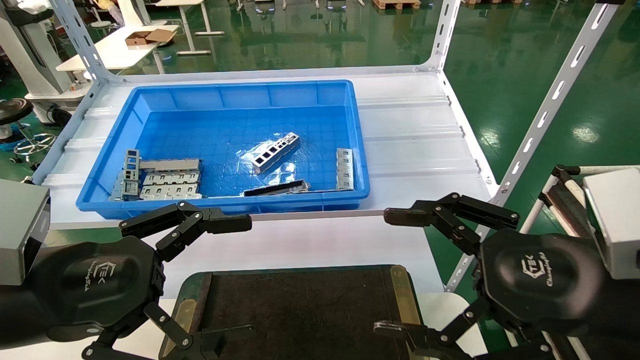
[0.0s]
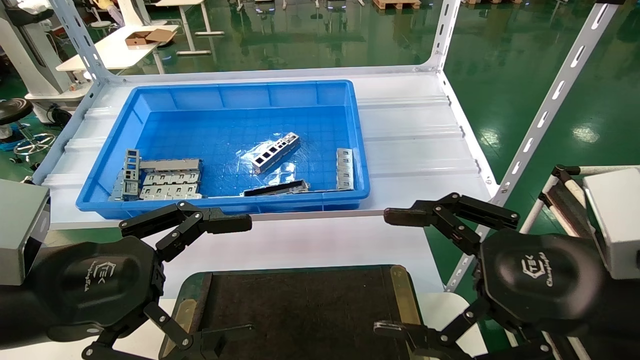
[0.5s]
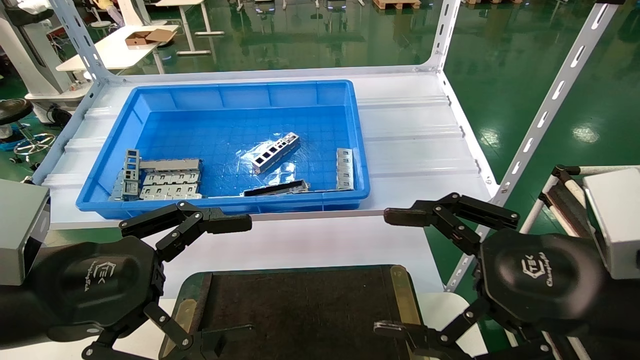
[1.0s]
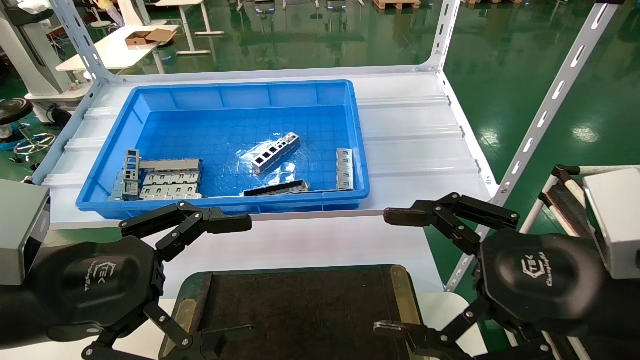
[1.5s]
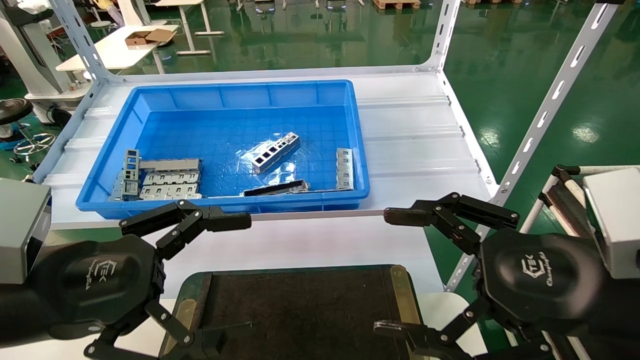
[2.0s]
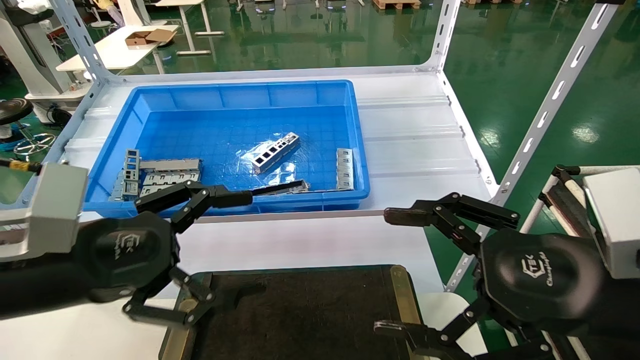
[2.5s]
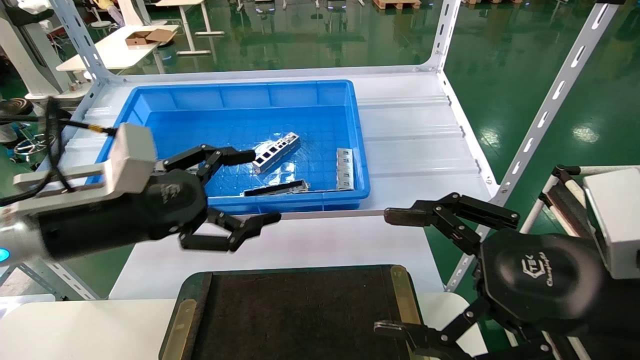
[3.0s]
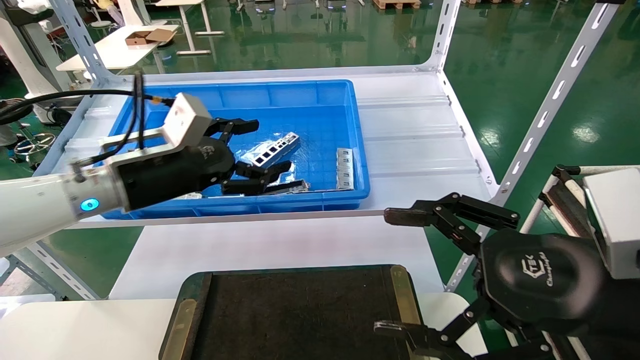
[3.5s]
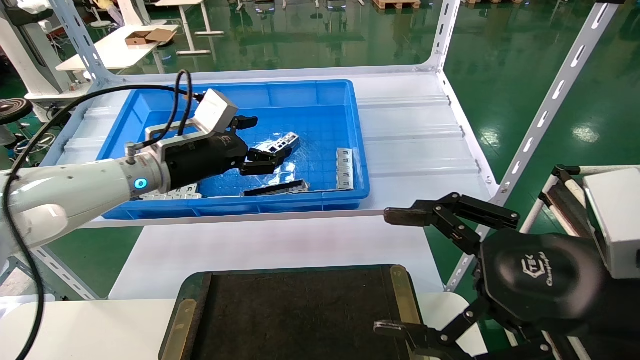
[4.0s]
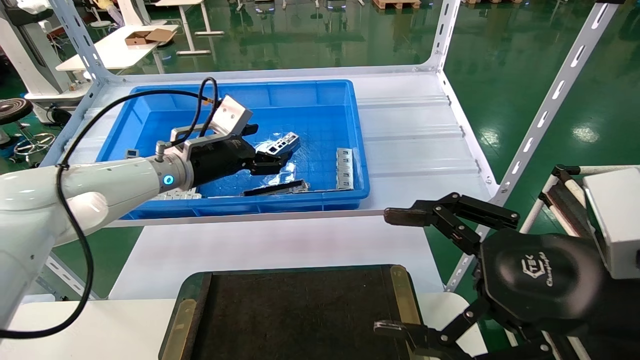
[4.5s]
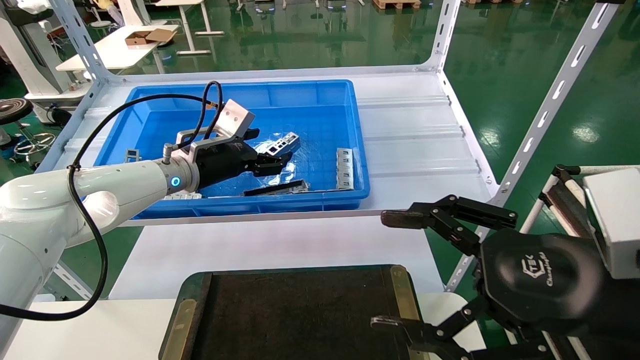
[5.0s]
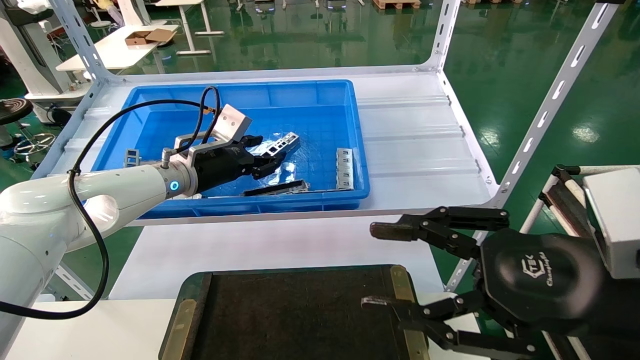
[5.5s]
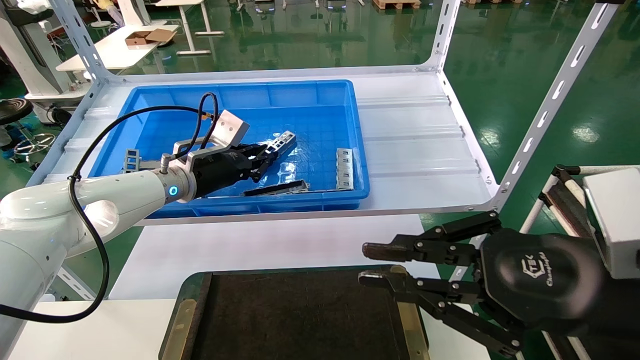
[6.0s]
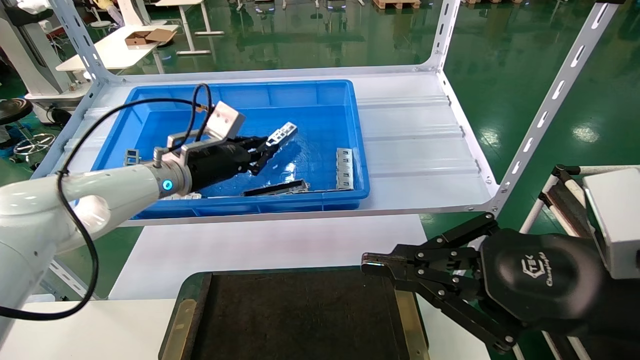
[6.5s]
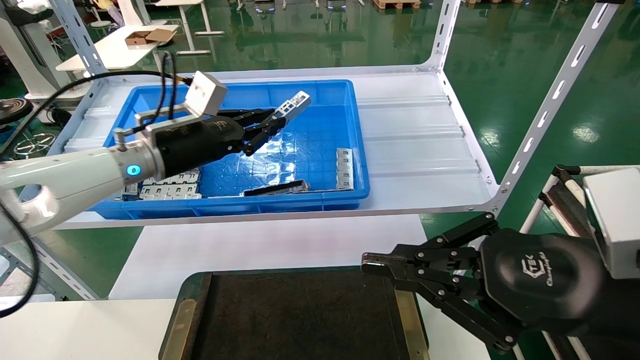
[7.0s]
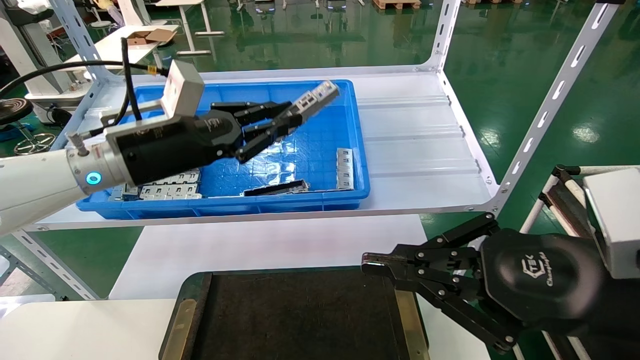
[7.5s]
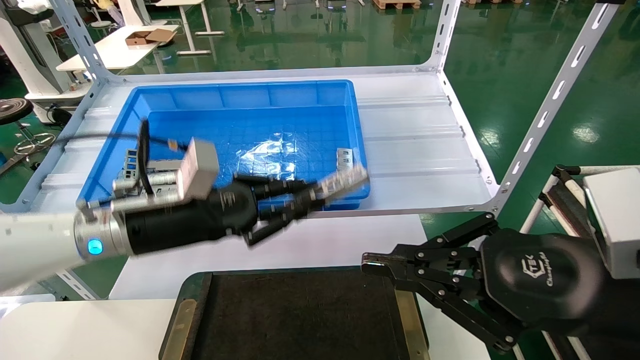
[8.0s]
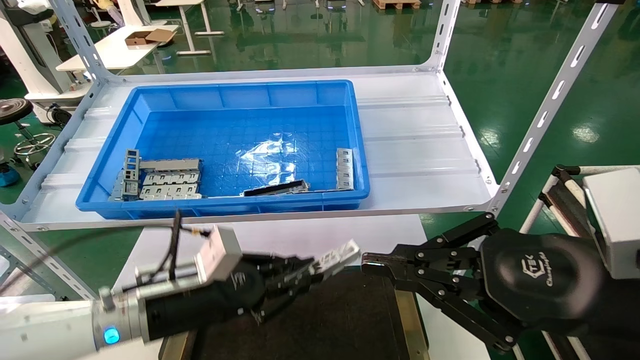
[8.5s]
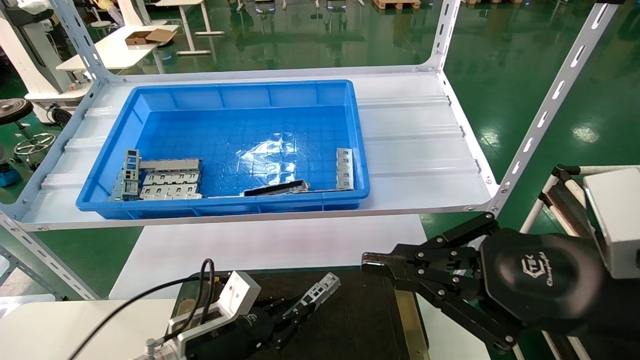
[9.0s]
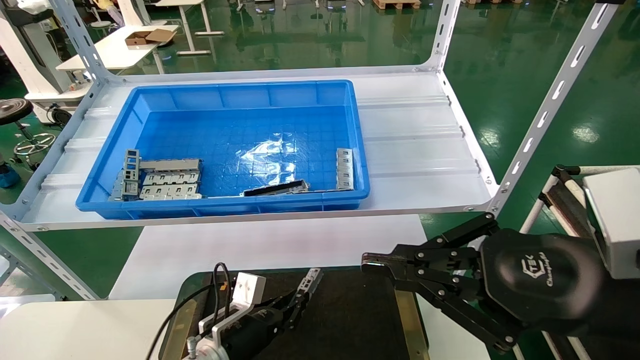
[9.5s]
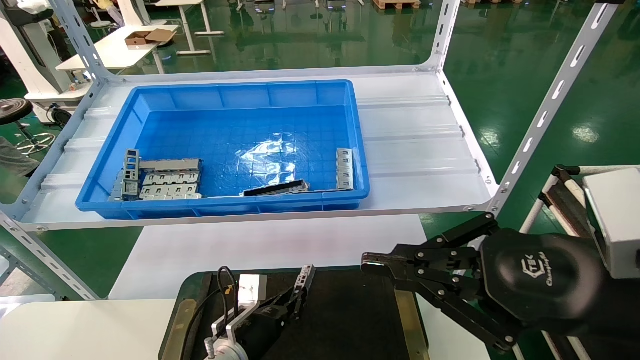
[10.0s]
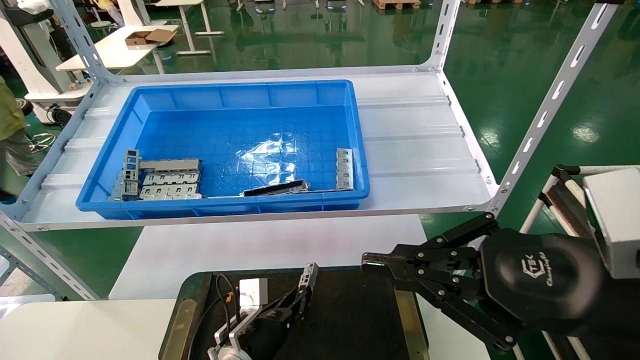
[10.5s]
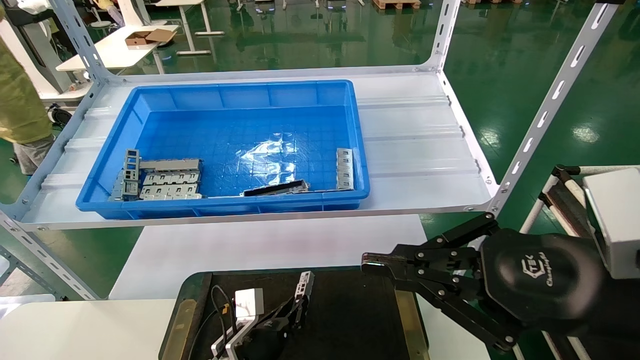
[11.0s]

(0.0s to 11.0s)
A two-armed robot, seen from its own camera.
Task of the whole recording: Grasp the part with one hand and place it on the black container.
Step, 2.5s - 6.5s: Pick up the front USB bracket from the feeding area.
0.0s - 2.0s: Both grippers stay put.
2.0s - 3.5s: The left gripper is displaced forward by about 20 cm.
3.5s - 5.5s: The left gripper moves forward, approximately 10 cm, and closes.
5.5s - 7.5s: The right gripper closes its fingers, while the left gripper moves backward, approximately 10 cm, and closes.
7.5s - 9.0s: The left gripper shifts some 25 cm downward.
9.0s - 11.0s: The left gripper moves downward and to the right, roughly 10 cm.

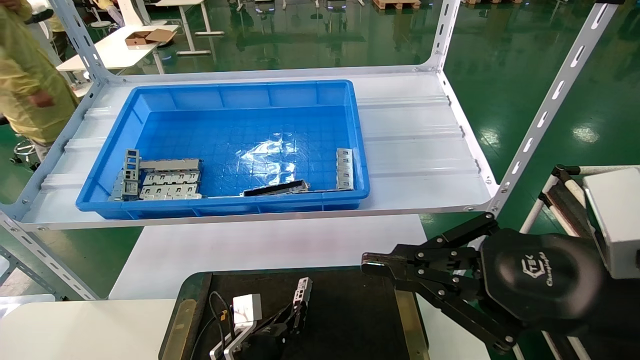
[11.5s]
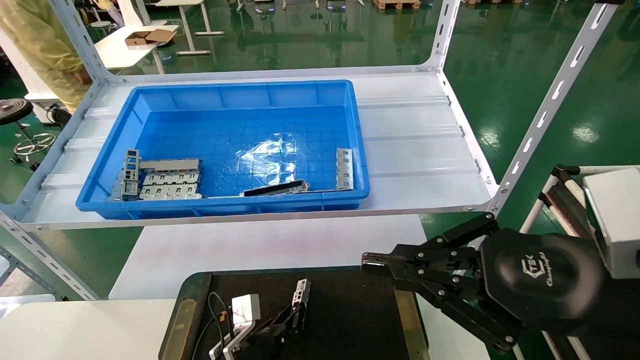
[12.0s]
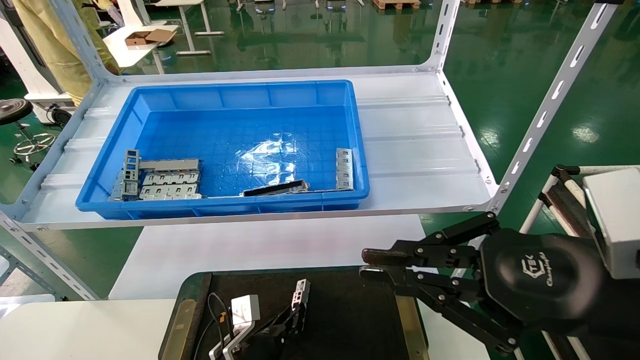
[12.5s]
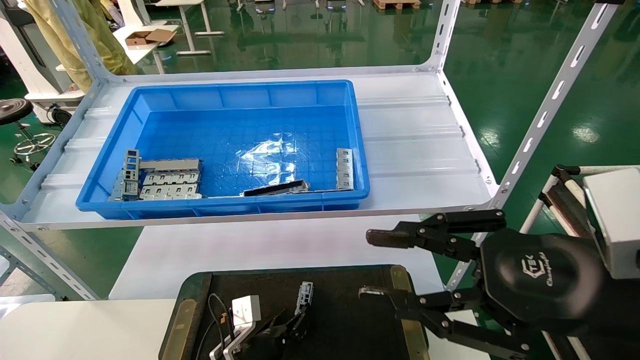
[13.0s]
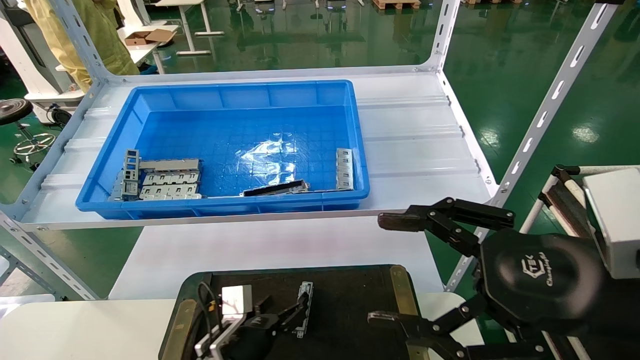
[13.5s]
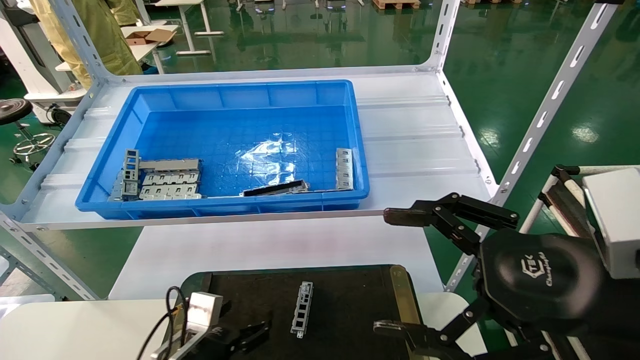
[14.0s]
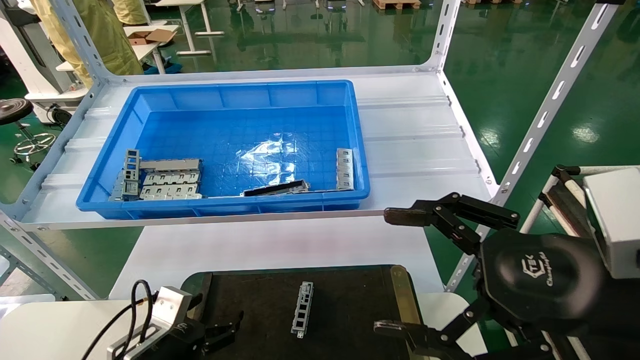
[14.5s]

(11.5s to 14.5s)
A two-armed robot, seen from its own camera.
Task of the whole recording: Grasp the part with one hand and place it on the black container.
11.5s - 13.0s: Neither gripper changes place.
13.0s - 14.5s: The right gripper opens its fingers; the left gripper is displaced to the left and upward by about 15 cm, and opens.

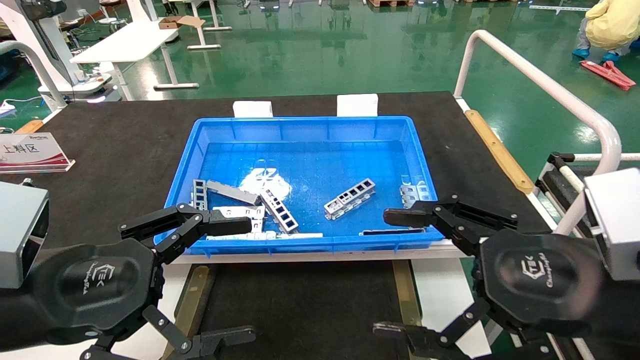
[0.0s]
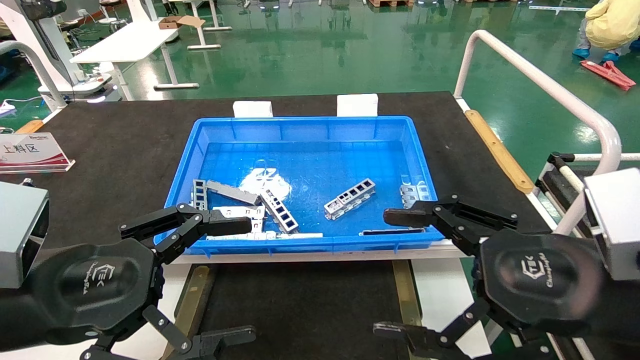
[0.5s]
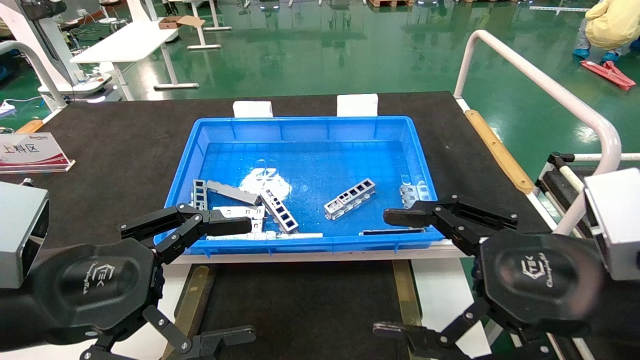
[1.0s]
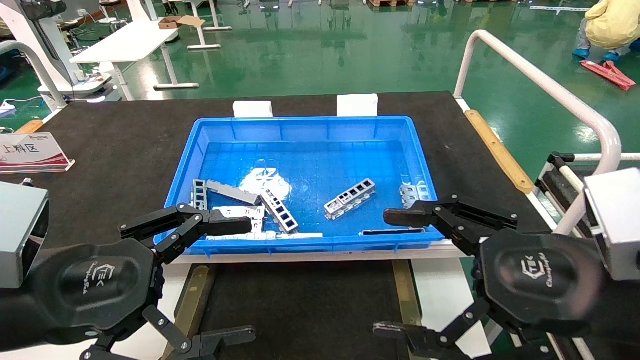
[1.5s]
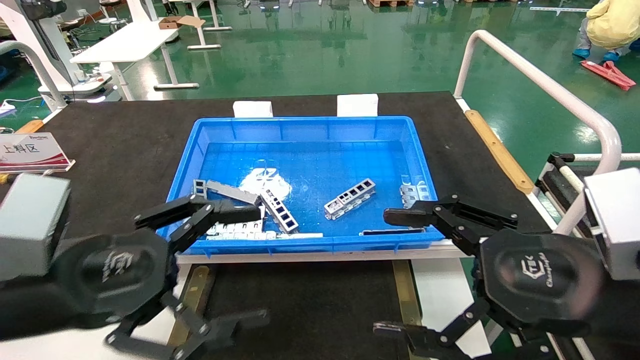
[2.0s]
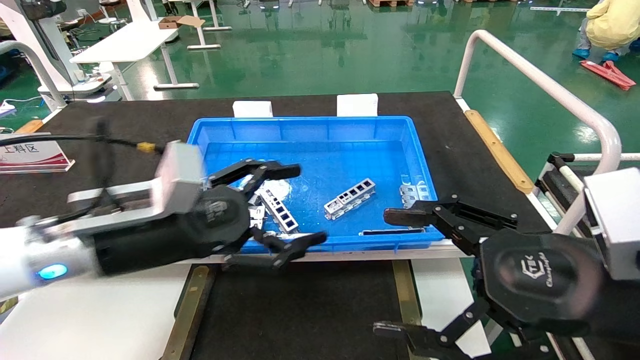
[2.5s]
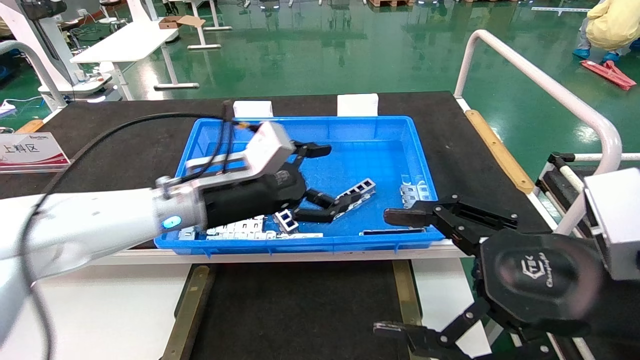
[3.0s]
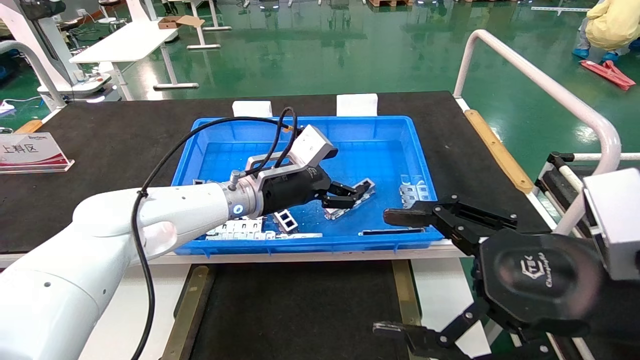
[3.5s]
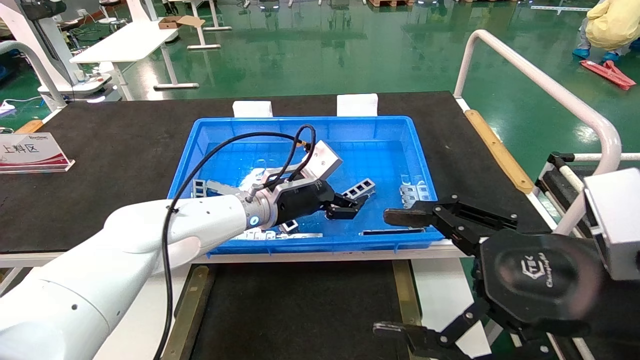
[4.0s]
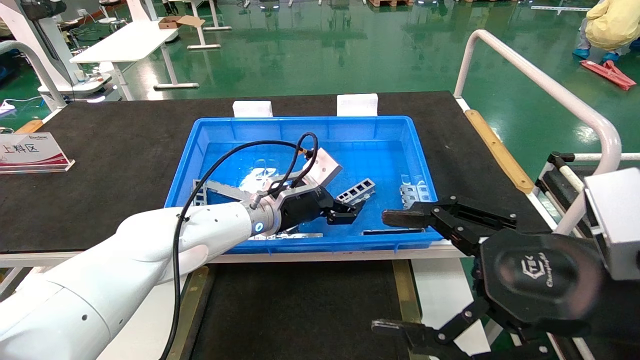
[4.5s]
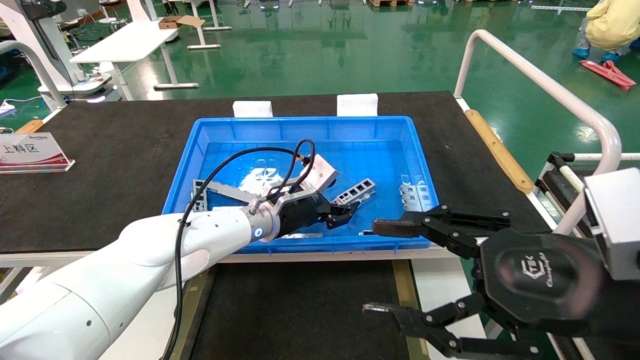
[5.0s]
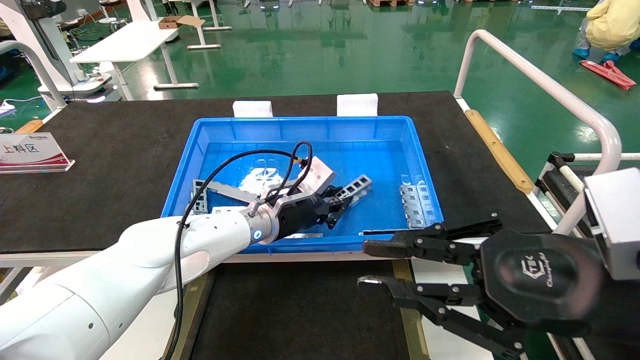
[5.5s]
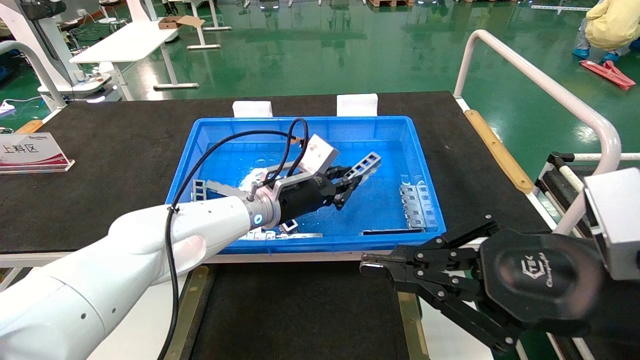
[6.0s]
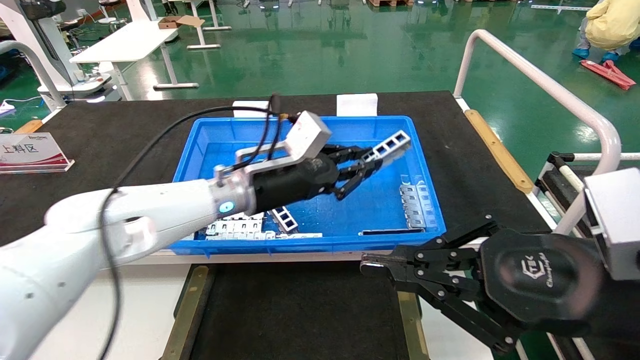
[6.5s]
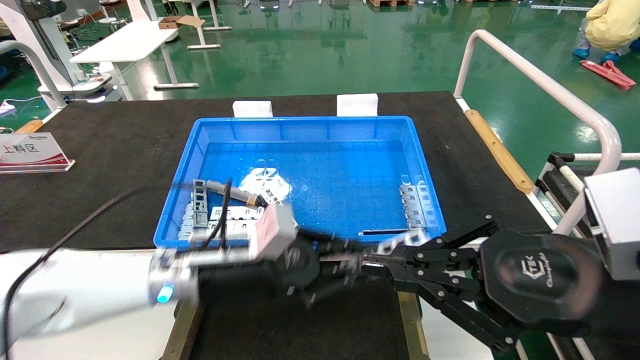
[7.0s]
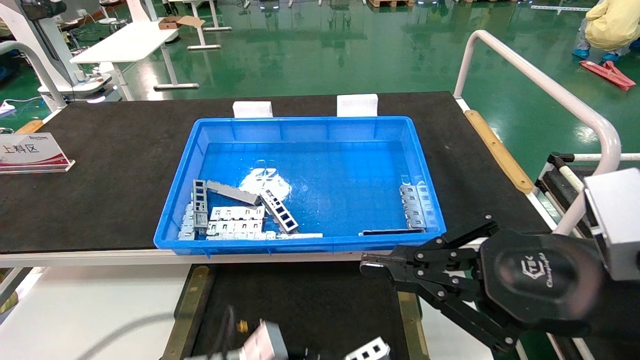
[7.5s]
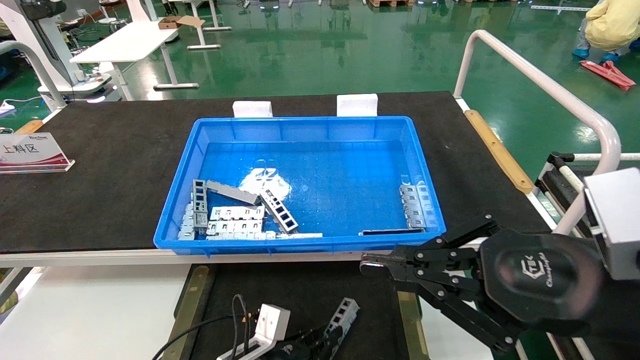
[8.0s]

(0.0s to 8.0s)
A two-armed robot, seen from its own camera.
Task of the whole recording: Grasp the part with one hand and place it on the black container.
Step, 2.5s - 5.5s: Pick up the front USB bracket from the feeding area.
0.0s - 2.0s: The grippers stay close to where they were, moving slightly.
2.0s - 4.0s: The left gripper goes some 30 cm forward and to the right.
4.0s - 6.0s: The left gripper closes. Meanwhile the right gripper closes up.
6.0s - 8.0s: The left gripper moves downward and backward, approximately 30 cm.
